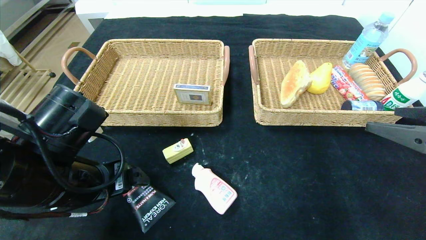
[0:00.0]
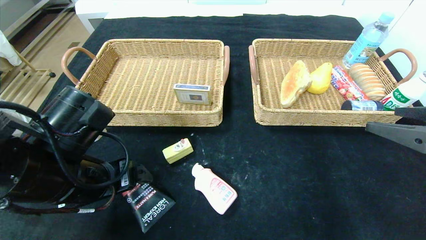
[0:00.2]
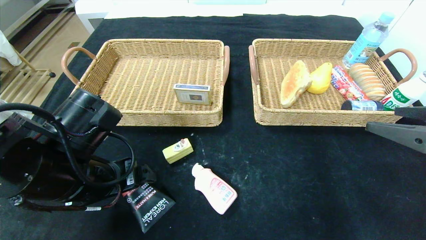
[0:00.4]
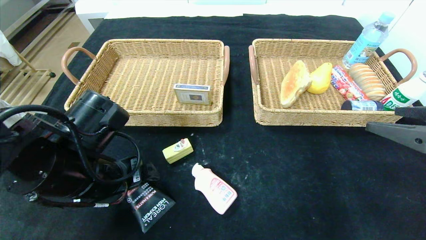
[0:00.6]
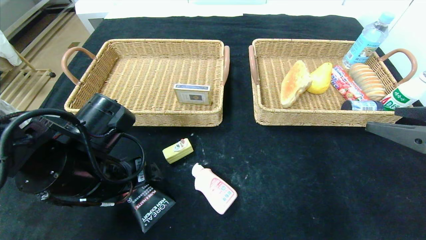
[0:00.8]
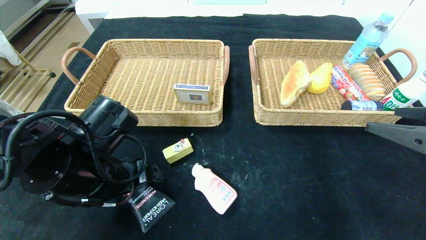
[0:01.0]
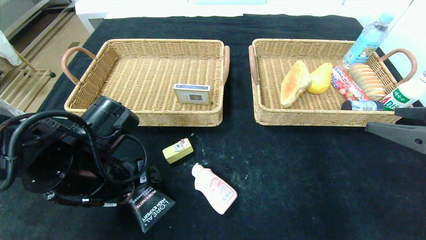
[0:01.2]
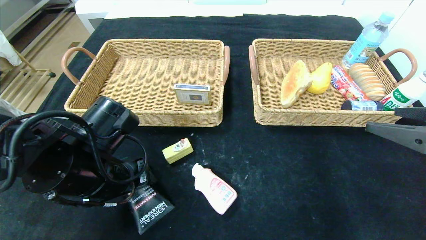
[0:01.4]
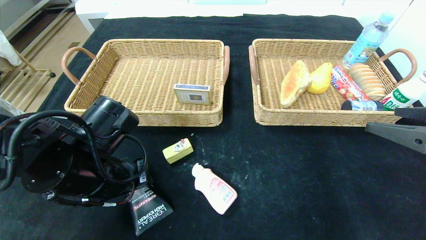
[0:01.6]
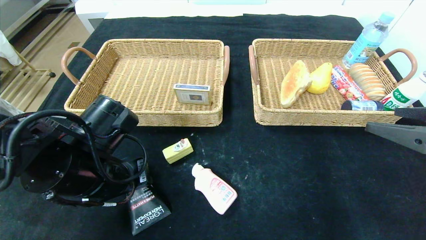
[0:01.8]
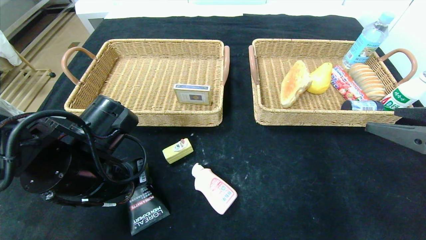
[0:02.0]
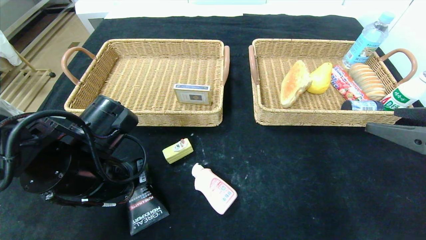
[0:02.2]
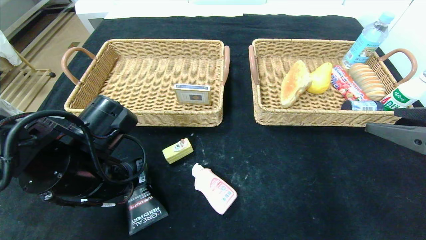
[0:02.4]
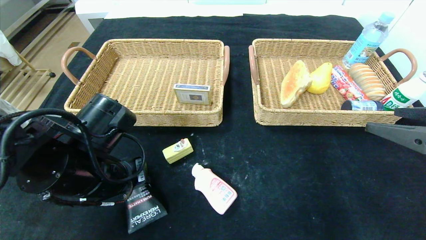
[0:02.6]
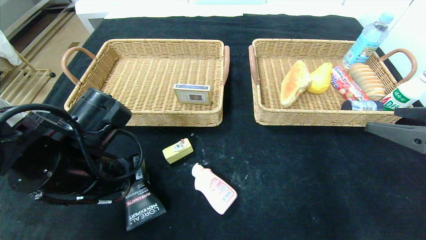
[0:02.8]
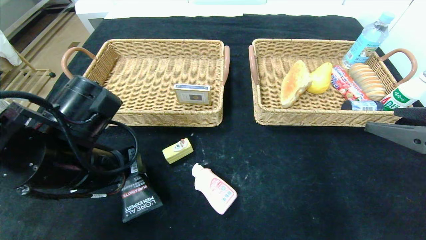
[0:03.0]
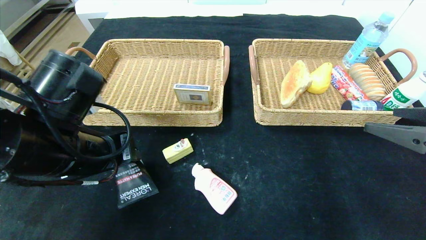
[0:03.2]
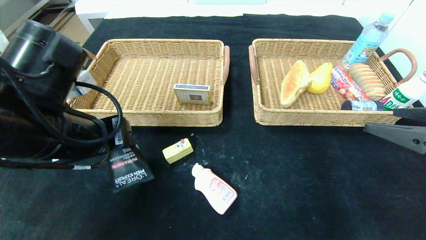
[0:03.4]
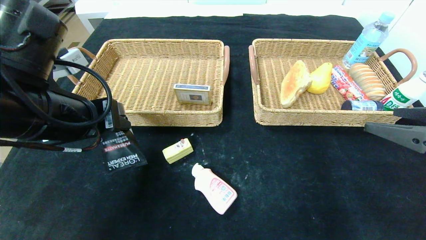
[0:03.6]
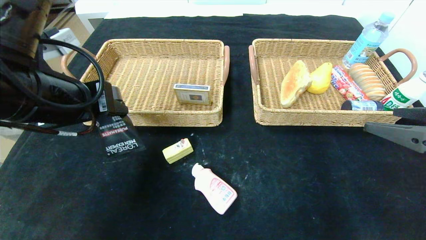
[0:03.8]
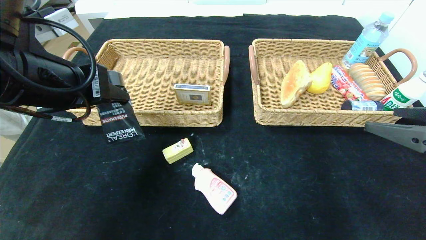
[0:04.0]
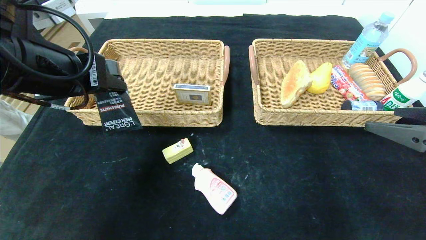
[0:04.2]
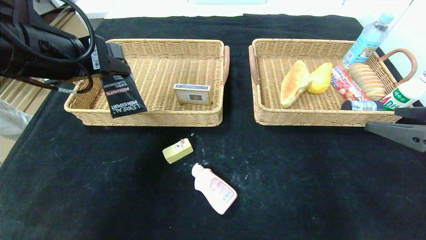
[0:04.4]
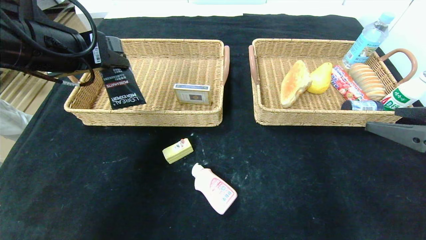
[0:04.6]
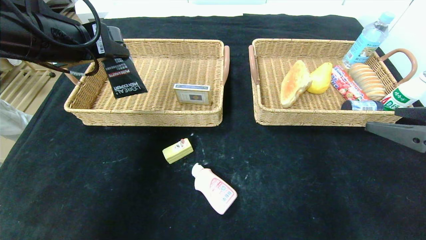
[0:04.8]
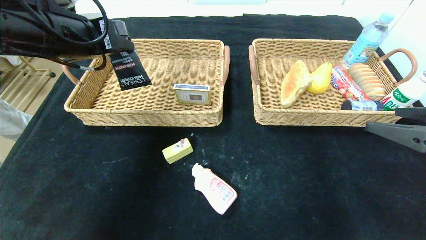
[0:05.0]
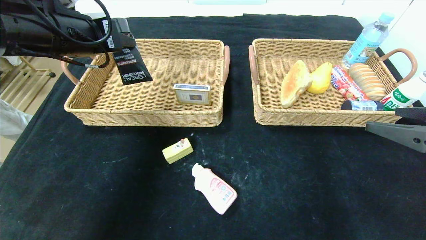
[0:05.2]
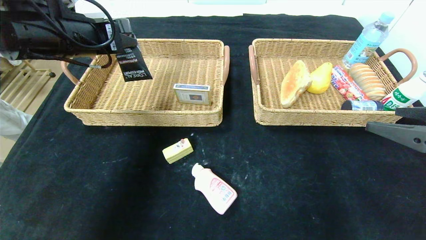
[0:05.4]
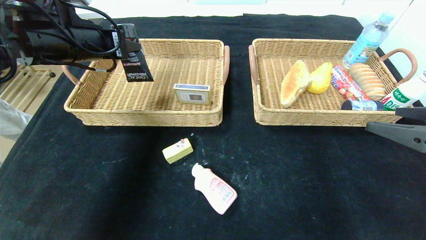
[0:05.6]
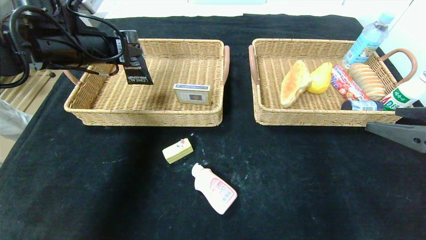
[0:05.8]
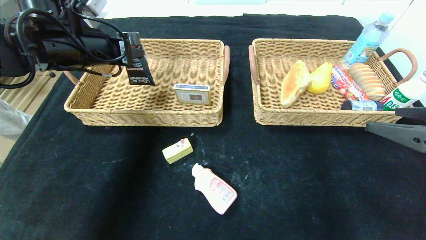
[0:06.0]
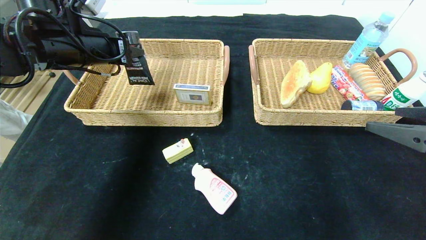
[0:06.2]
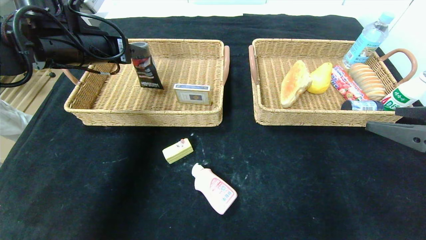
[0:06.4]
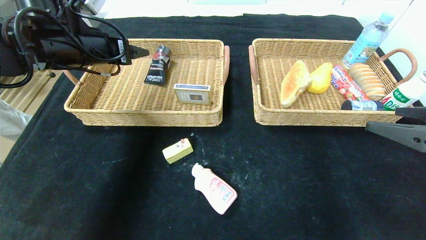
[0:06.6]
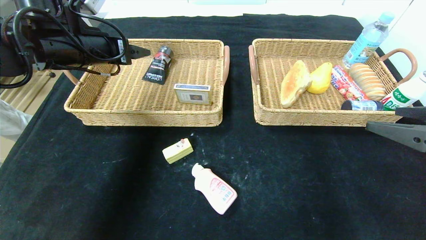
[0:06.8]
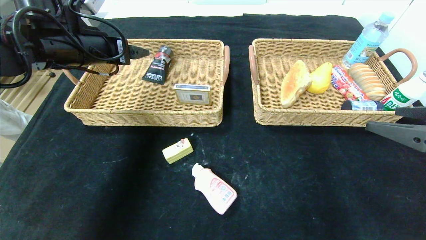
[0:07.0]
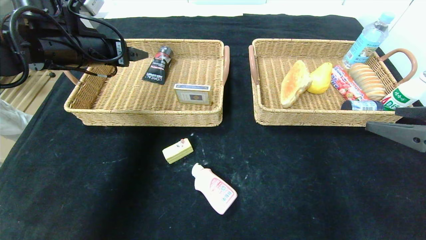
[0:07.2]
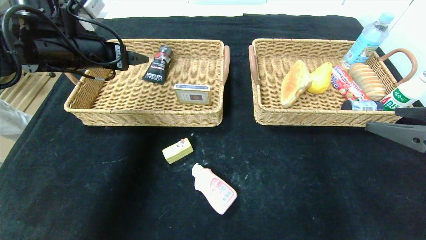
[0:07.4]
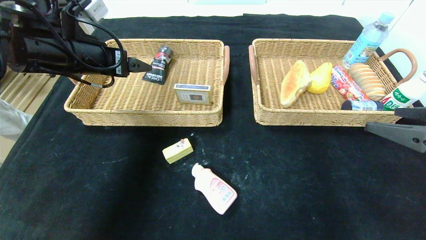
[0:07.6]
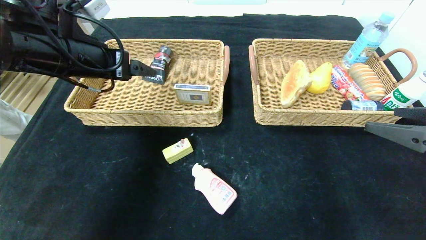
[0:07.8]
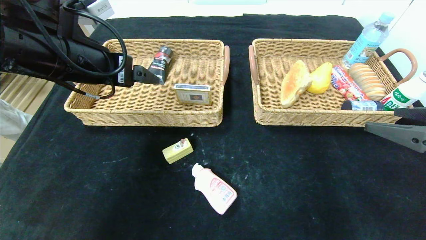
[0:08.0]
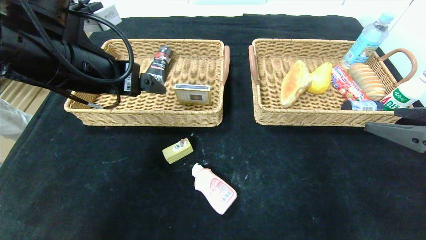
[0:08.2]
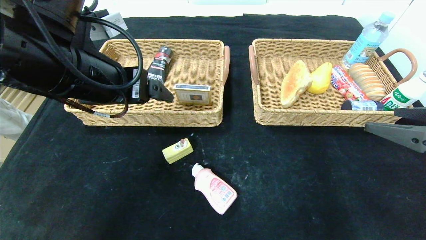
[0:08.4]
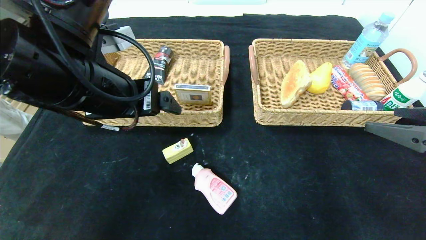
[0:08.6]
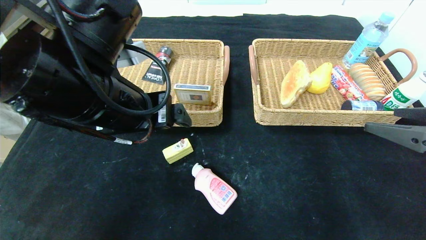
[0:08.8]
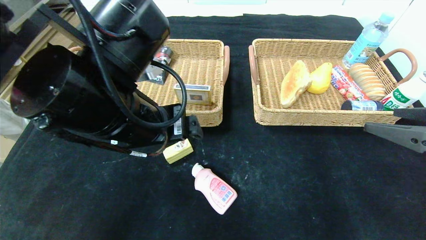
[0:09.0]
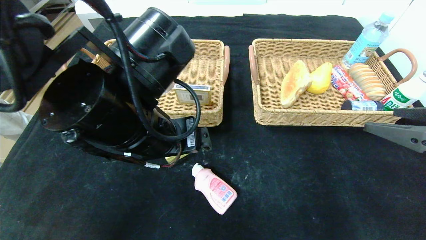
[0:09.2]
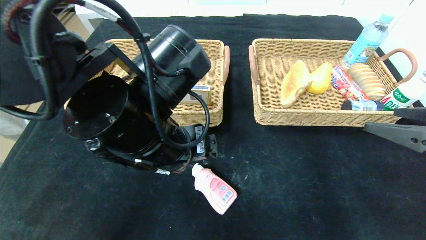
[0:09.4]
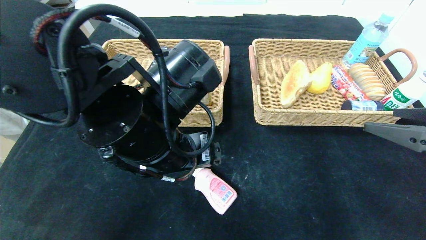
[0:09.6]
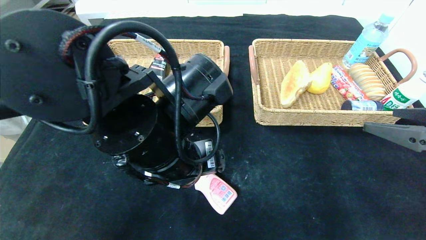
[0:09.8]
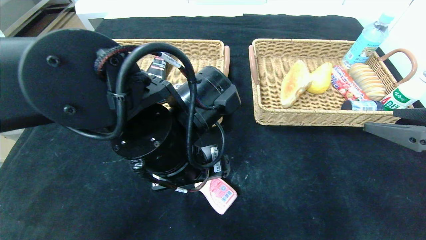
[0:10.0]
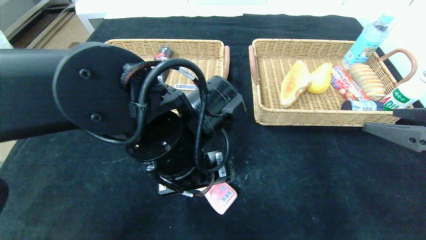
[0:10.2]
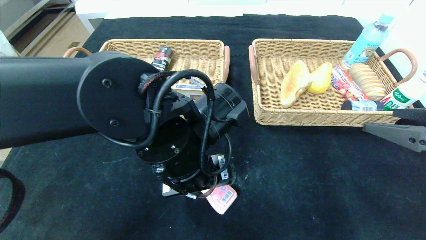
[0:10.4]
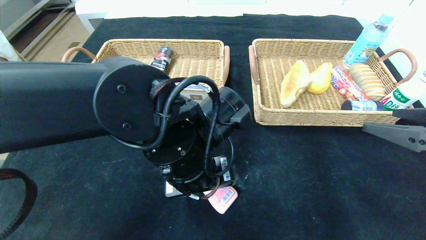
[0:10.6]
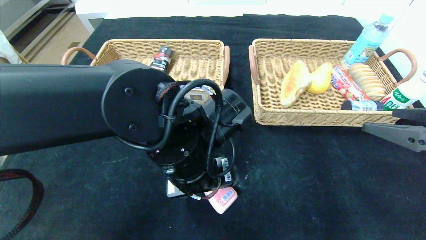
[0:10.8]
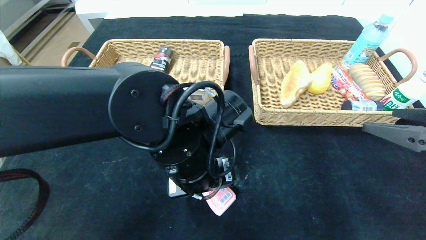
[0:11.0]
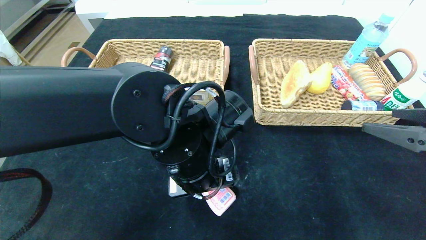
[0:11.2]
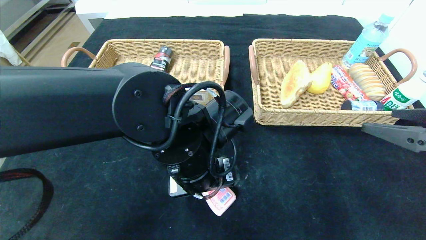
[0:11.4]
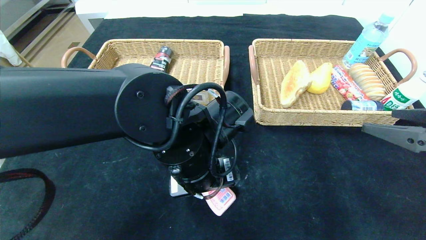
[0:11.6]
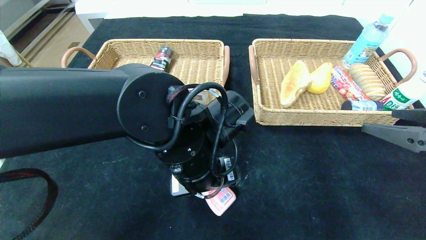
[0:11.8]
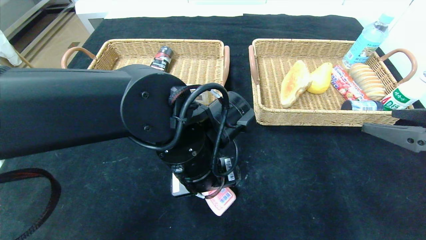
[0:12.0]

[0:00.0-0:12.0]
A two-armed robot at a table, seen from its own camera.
Step, 0:00.0 to 0:07.0: Grasp the soft cleanser and put it in the left basket.
0:00.0 to 0:01.6: The left gripper closes up.
0:01.6 to 0:03.0: There are only small adjustments of the grippers.
0:03.0 to 0:04.4: The left gripper travels upward by some 15 cm.
0:04.4 to 0:06.0: The left gripper goes roughly 10 cm forward.
0:06.0 to 0:07.6: The left gripper opens its fingers.
0:07.6 to 0:09.0: The left gripper travels to the right and backward by some 20 cm.
0:09.0 to 0:10.4: The left gripper goes about 10 cm downward and to the right.
0:10.4 to 0:12.0: There are only small adjustments of the grippers.

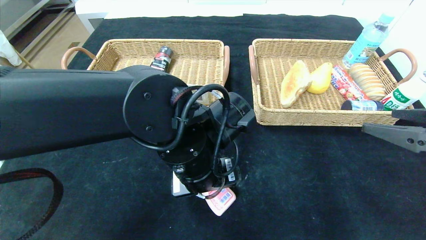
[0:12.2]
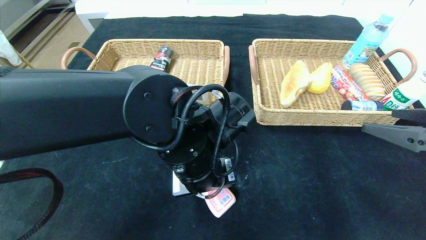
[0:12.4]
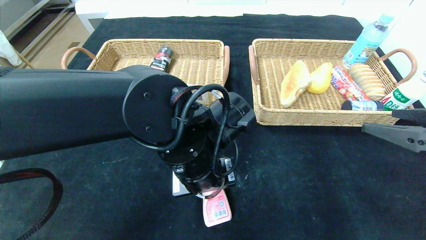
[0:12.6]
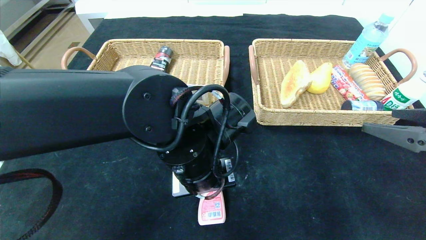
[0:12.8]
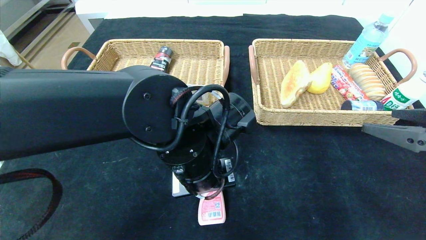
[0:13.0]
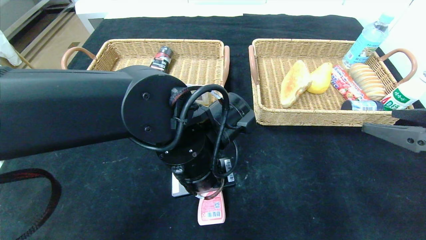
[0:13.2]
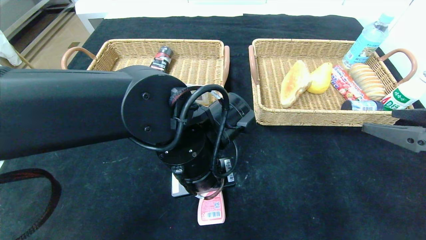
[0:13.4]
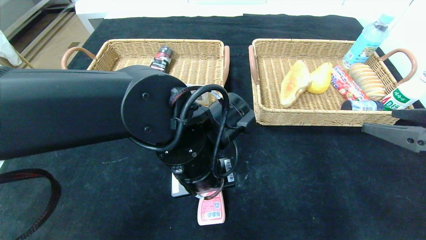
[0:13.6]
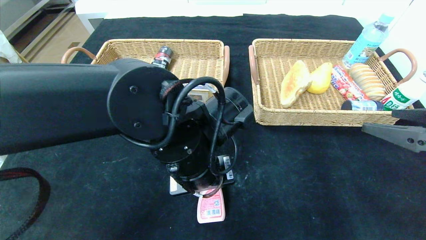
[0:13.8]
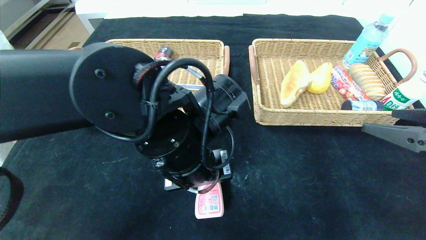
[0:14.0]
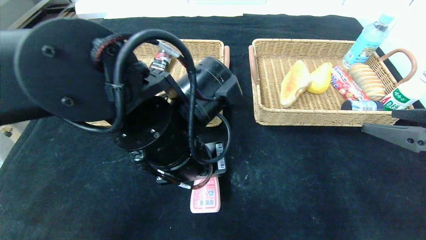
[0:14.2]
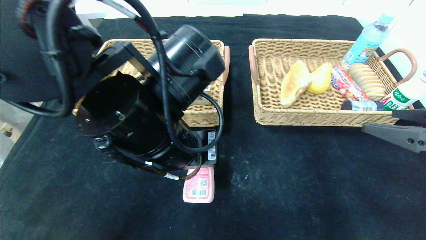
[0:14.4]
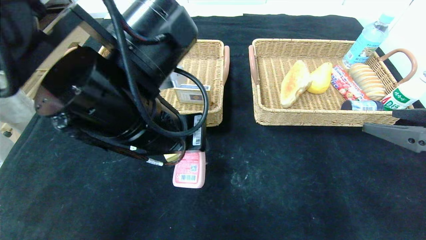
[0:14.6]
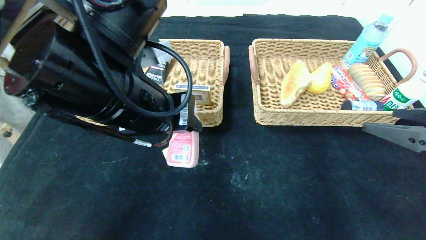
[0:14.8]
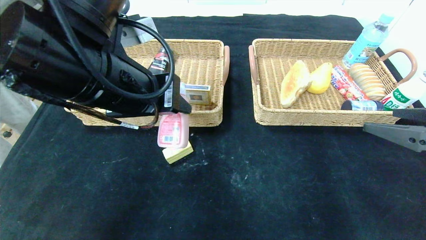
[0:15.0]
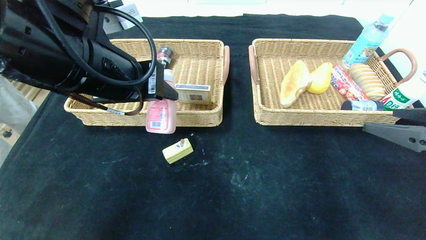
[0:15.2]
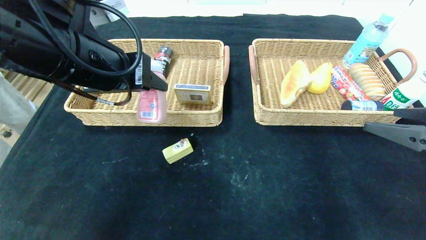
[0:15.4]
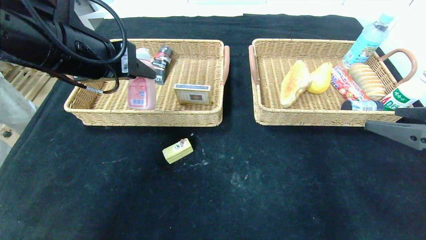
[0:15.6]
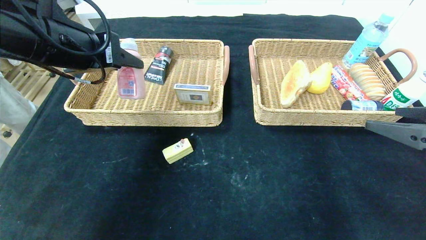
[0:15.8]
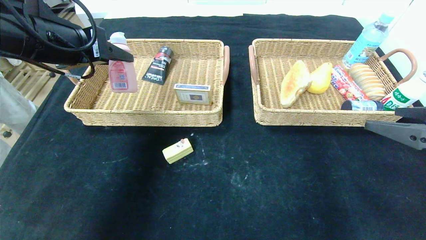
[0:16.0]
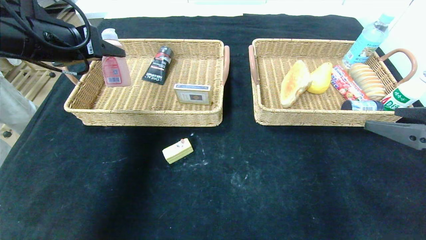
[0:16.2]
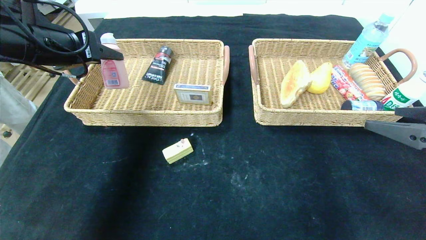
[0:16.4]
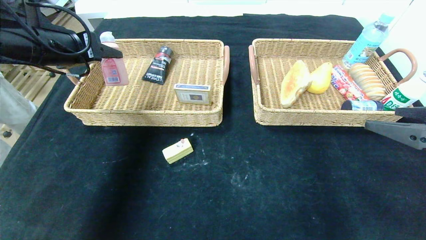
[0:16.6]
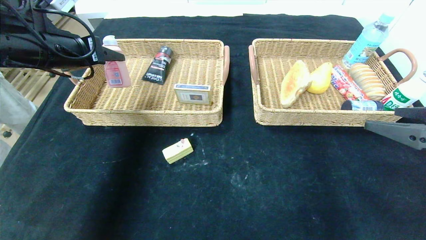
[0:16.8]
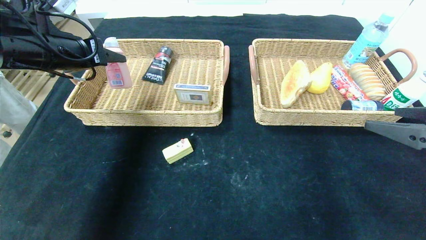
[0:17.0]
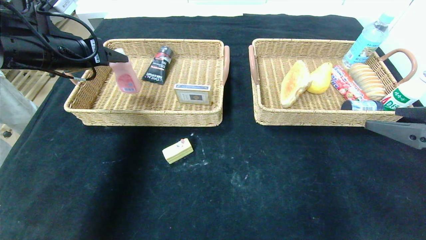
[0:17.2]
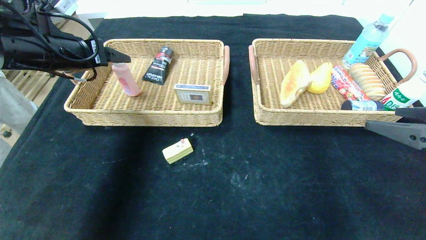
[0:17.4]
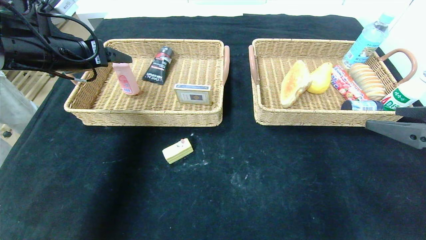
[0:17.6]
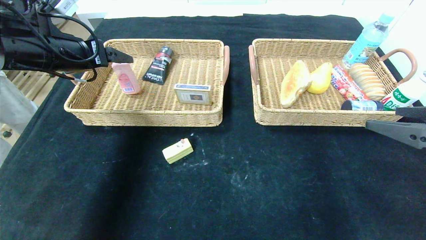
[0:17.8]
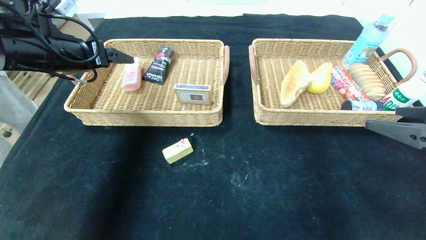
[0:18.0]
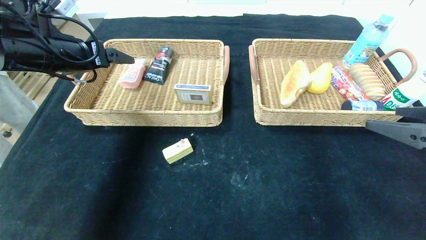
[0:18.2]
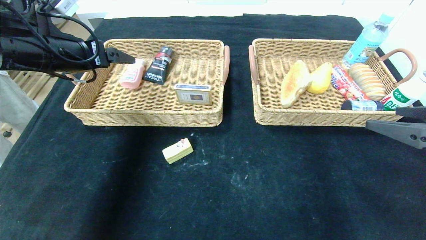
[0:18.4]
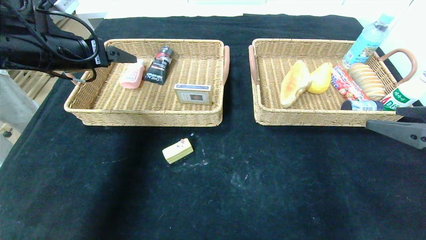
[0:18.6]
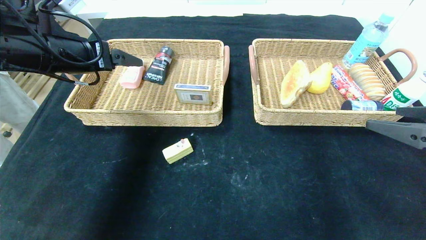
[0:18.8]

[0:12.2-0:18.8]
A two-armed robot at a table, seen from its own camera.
Step, 0:12.2 to 0:17.6: Grasp the detergent and put it in the left basket.
0:12.2 to 0:13.8: The left gripper closes.
0:13.8 to 0:15.4: The left gripper travels upward and to the left by about 20 cm.
0:15.4 to 0:17.2: The left gripper heads to the left and forward, covering roughly 15 cm.
0:17.2 to 0:18.8: The left gripper opens its fingers.
